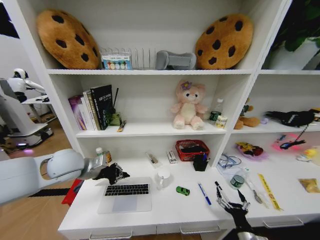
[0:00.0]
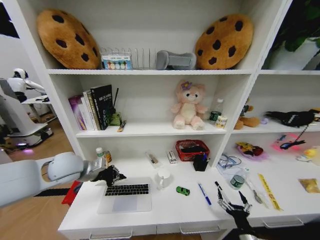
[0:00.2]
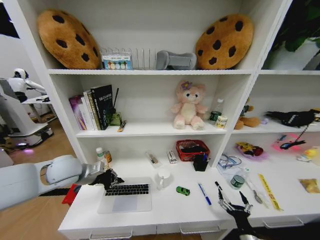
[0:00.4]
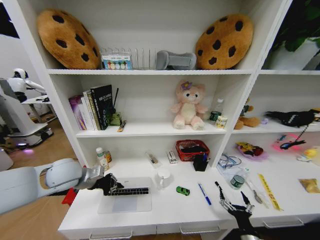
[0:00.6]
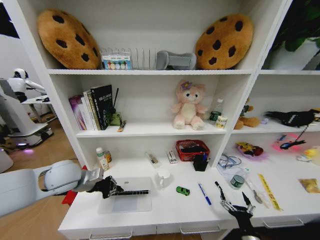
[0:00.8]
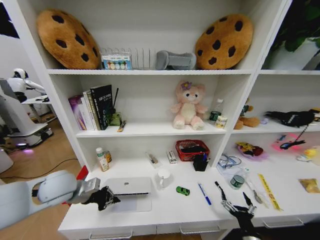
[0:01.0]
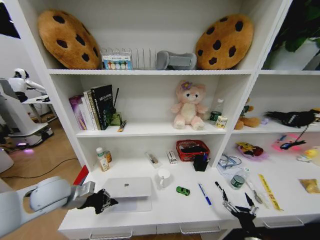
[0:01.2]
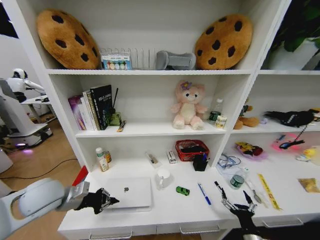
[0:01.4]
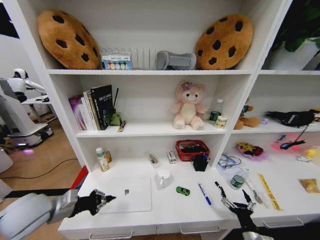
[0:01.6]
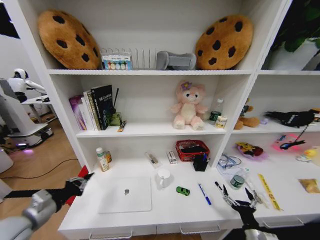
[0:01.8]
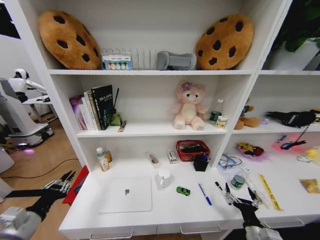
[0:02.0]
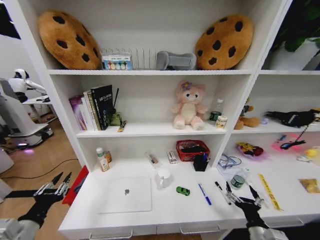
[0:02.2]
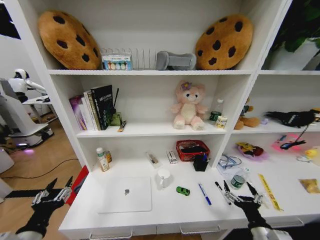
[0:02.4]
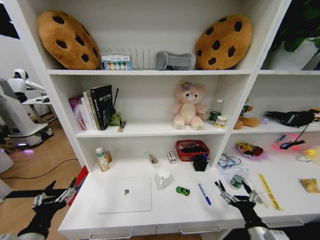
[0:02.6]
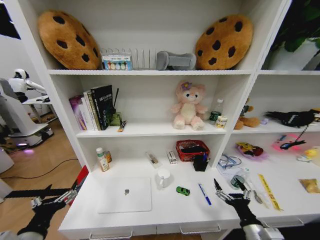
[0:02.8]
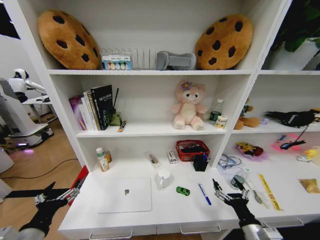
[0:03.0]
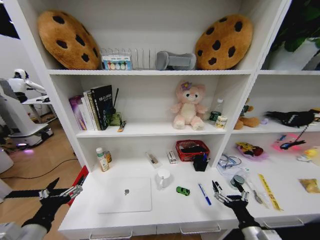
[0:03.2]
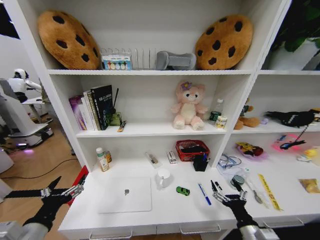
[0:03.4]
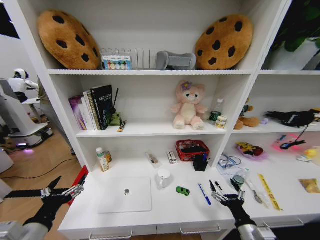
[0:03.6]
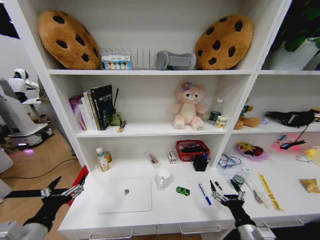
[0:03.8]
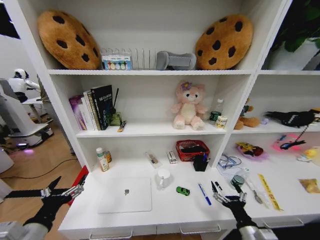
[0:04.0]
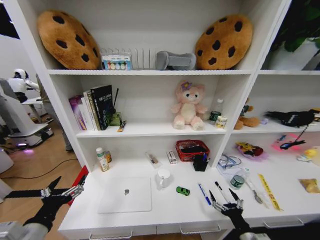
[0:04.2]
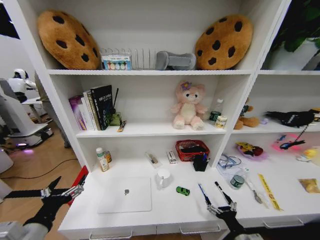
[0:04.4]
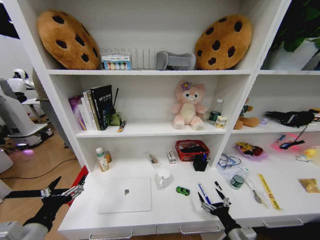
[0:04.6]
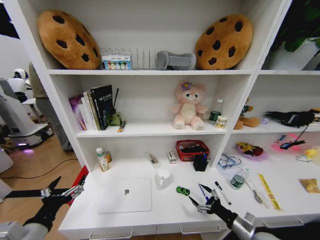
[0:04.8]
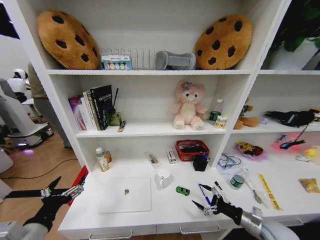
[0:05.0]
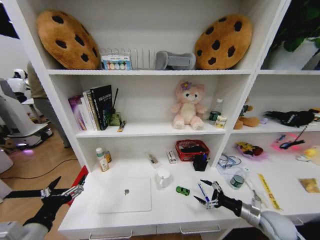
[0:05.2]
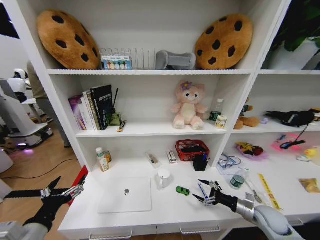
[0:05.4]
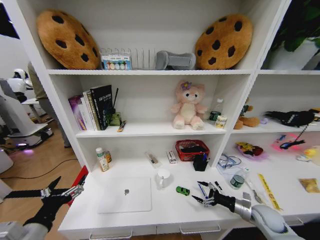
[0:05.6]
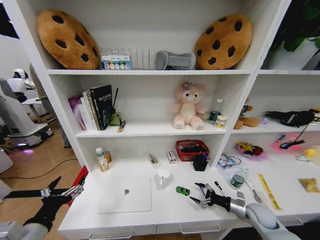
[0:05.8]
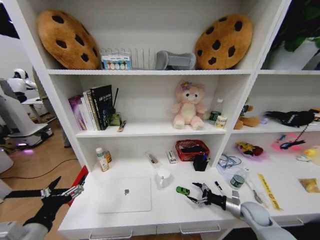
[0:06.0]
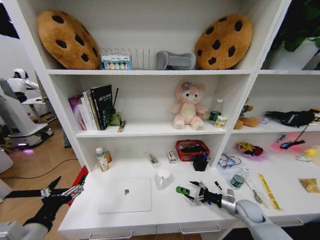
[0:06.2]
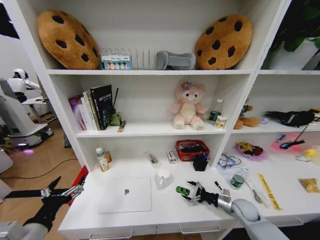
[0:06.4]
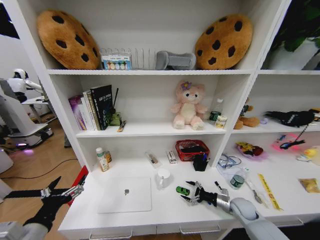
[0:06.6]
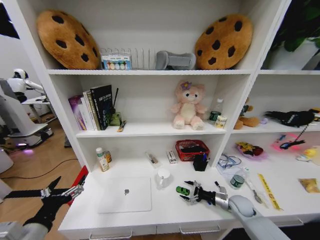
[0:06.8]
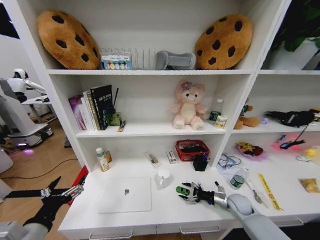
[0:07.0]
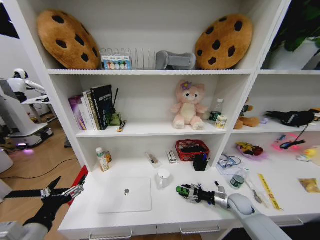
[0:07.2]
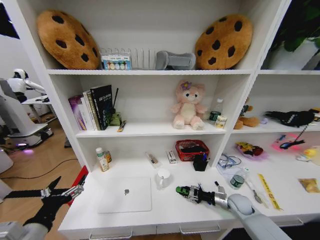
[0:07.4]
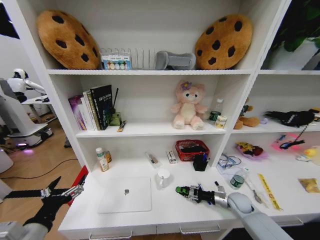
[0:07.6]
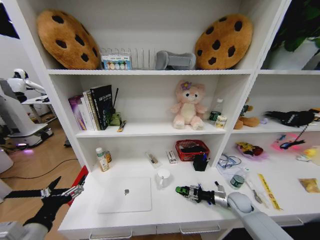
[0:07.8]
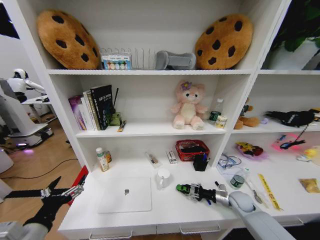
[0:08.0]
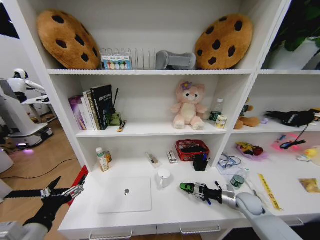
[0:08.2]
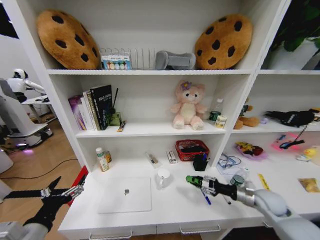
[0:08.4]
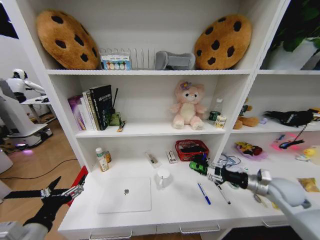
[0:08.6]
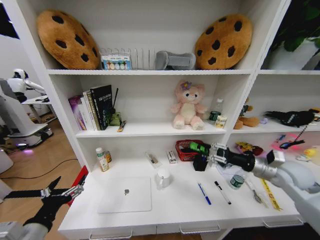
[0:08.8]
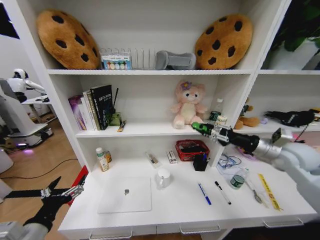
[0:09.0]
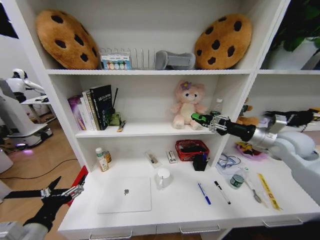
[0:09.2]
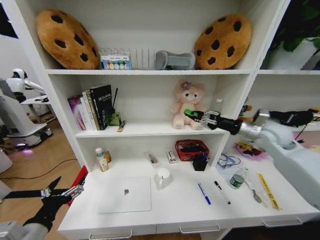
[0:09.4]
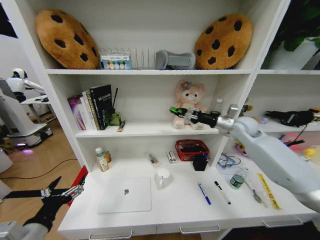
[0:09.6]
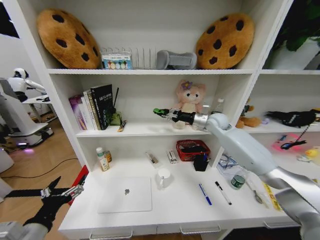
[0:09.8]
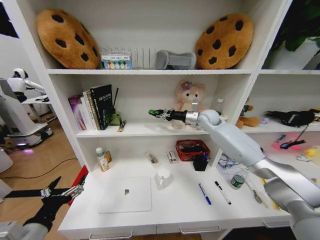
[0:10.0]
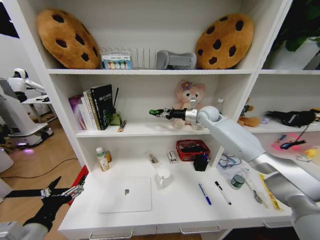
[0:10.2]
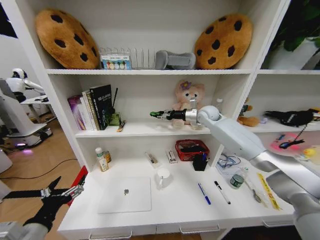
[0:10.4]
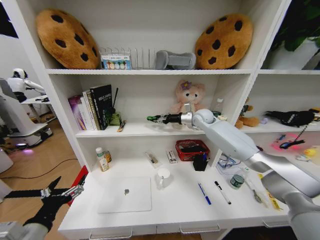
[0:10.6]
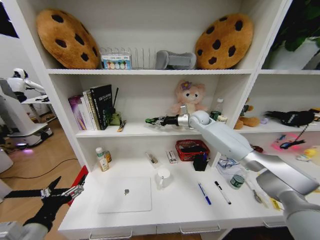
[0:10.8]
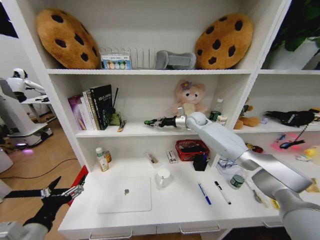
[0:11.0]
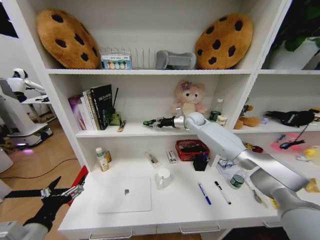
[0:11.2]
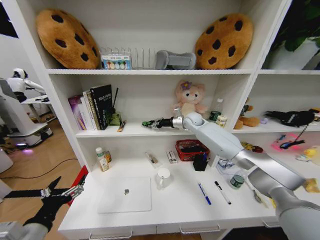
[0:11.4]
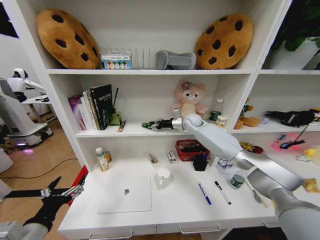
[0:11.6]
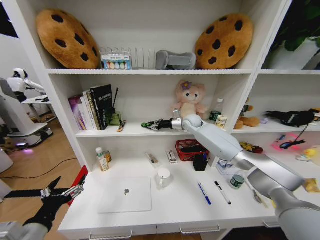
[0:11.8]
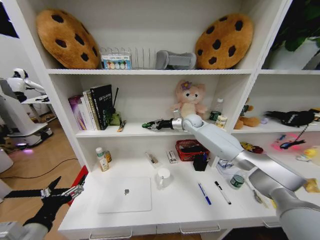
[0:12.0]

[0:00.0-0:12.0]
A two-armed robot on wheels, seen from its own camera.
Task of the whole recording: Organize the objects on the table.
0:00.0 to 0:01.6: The left gripper shifts some 15 cm backward, downward and to the left.
0:01.6 to 0:03.0: The right gripper heads upward, covering some 10 cm. Meanwhile the left gripper shifts some 15 cm backward, and opens.
0:03.0 to 0:04.4: The right gripper shifts about 5 cm downward.
0:04.4 to 0:06.0: The right gripper goes about 20 cm forward and to the right.
0:06.0 to 0:07.6: The right gripper ends up about 5 cm from where it was, and closes up.
0:07.6 to 0:09.0: The right gripper moves upward, some 35 cm.
0:09.0 to 0:10.4: The right gripper moves forward and to the left, roughly 30 cm.
0:10.4 to 0:12.0: The right gripper shifts approximately 10 cm to the left and downward.

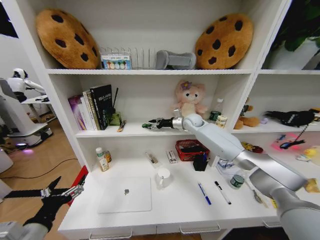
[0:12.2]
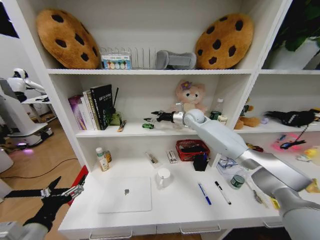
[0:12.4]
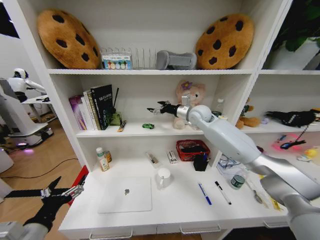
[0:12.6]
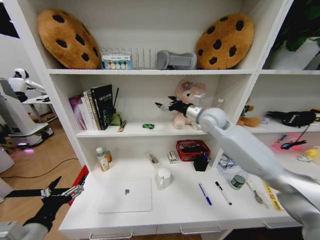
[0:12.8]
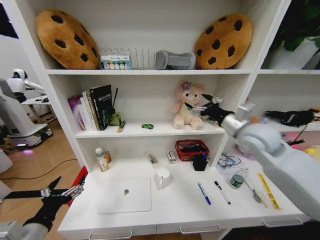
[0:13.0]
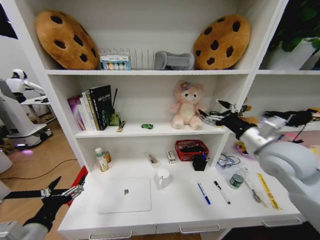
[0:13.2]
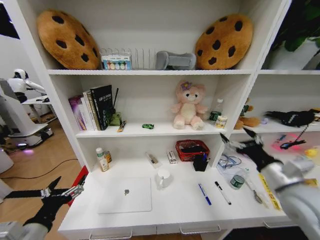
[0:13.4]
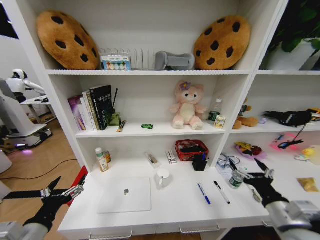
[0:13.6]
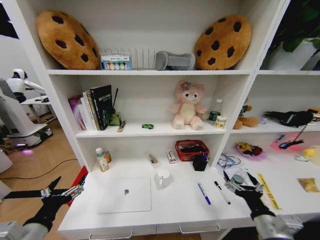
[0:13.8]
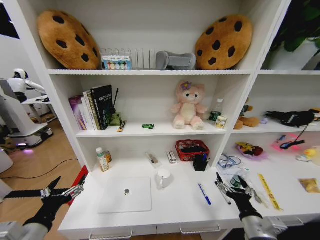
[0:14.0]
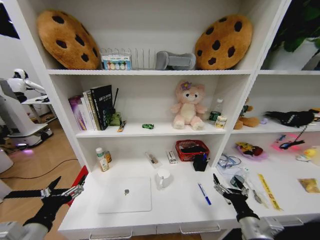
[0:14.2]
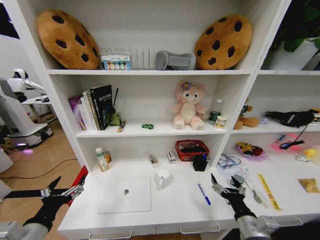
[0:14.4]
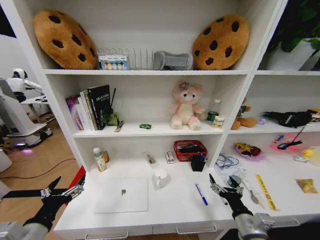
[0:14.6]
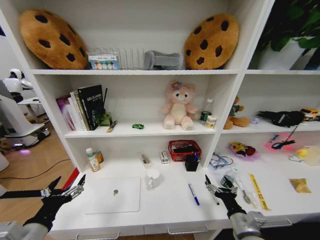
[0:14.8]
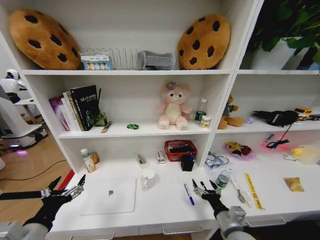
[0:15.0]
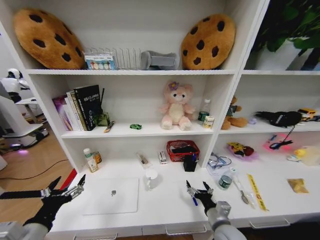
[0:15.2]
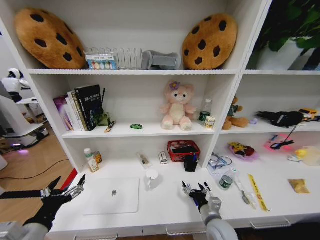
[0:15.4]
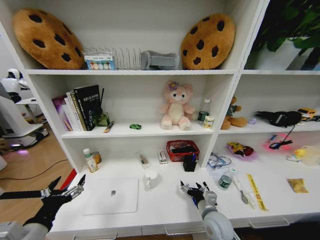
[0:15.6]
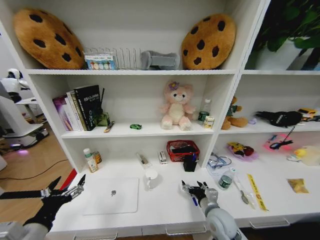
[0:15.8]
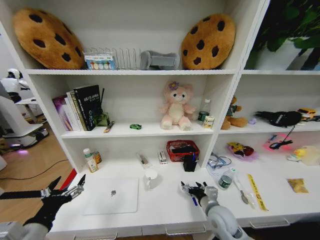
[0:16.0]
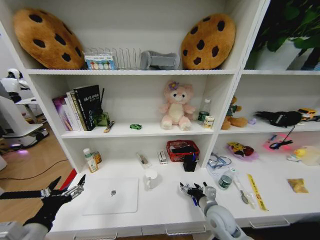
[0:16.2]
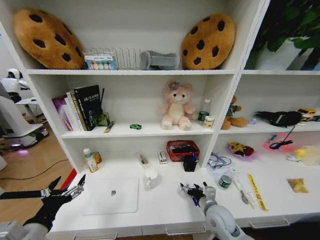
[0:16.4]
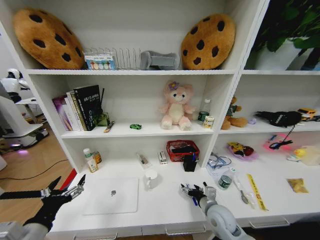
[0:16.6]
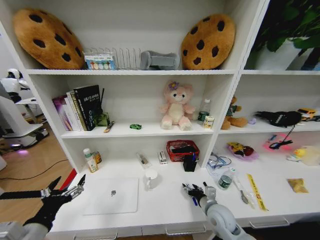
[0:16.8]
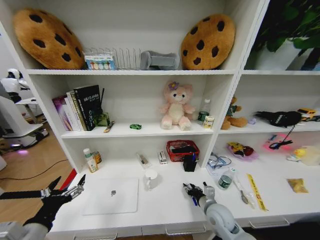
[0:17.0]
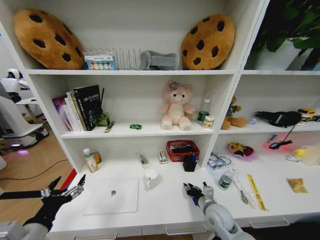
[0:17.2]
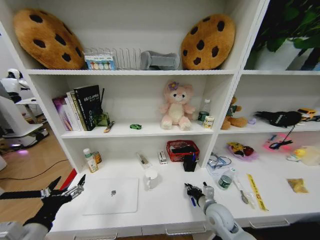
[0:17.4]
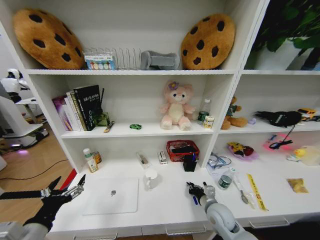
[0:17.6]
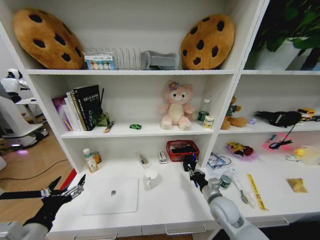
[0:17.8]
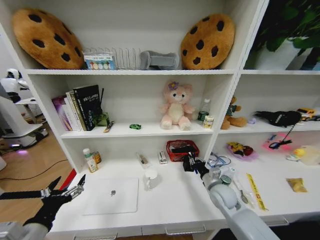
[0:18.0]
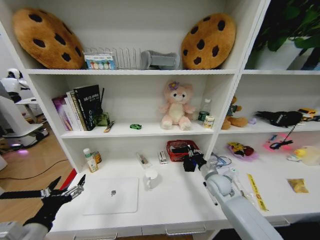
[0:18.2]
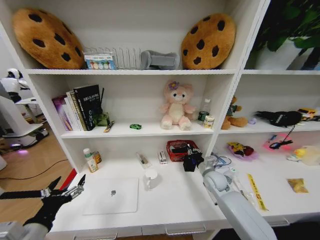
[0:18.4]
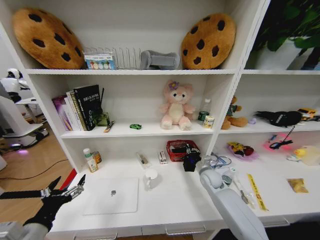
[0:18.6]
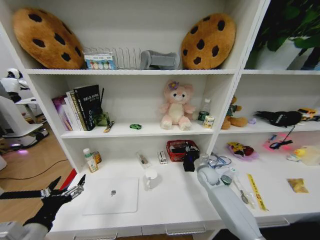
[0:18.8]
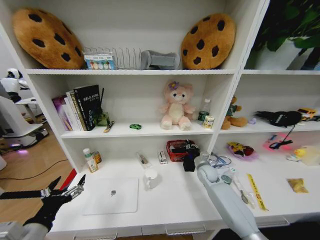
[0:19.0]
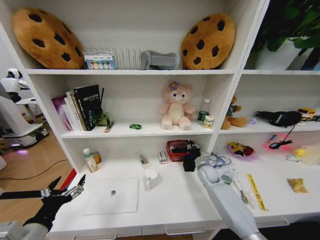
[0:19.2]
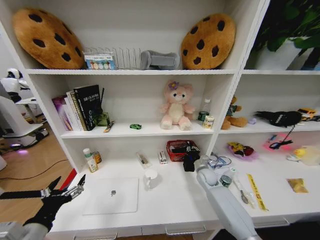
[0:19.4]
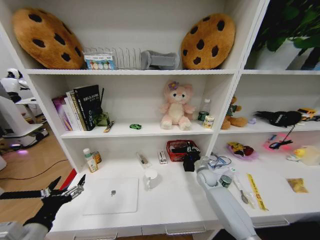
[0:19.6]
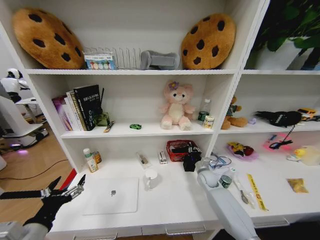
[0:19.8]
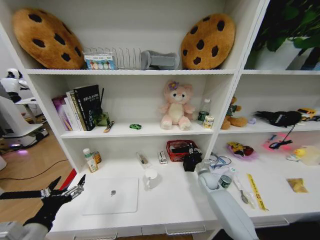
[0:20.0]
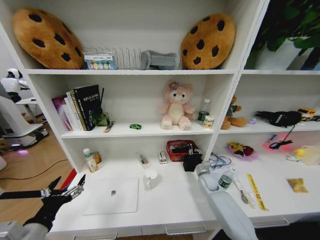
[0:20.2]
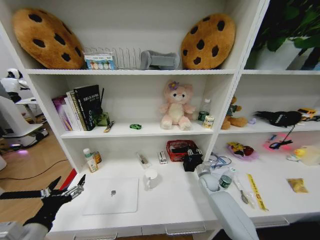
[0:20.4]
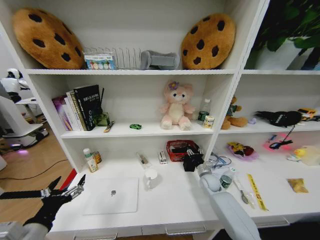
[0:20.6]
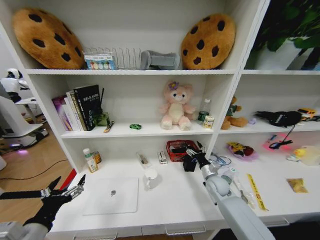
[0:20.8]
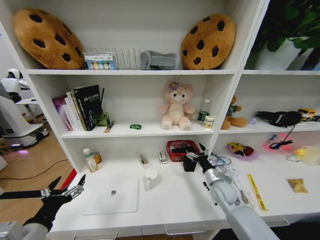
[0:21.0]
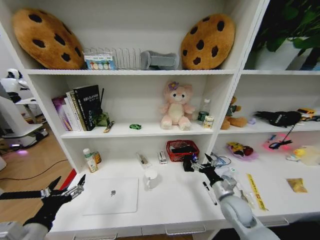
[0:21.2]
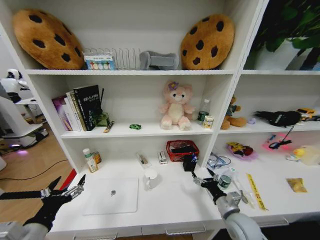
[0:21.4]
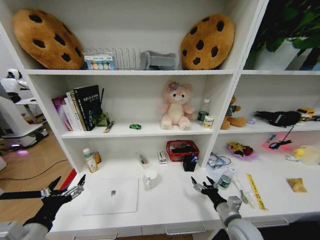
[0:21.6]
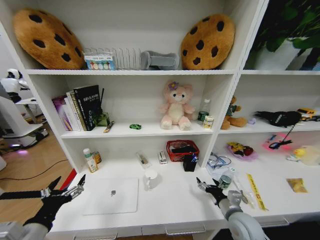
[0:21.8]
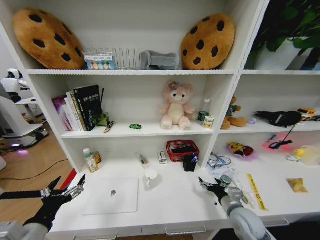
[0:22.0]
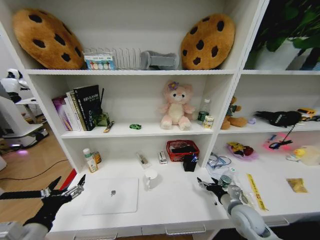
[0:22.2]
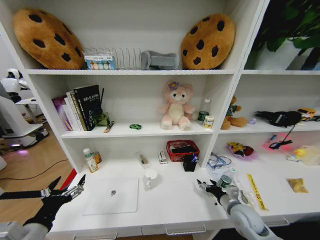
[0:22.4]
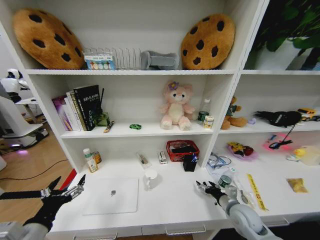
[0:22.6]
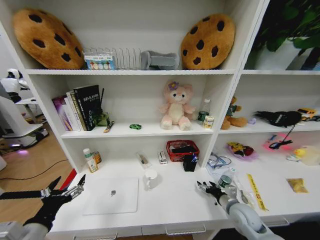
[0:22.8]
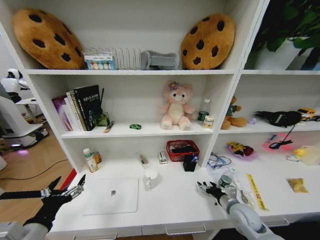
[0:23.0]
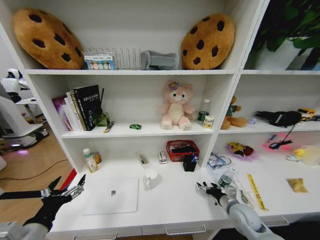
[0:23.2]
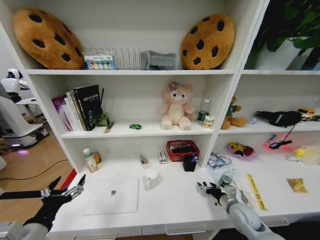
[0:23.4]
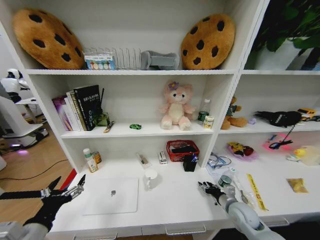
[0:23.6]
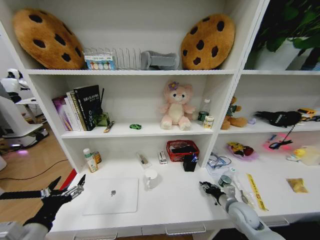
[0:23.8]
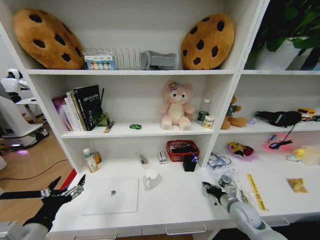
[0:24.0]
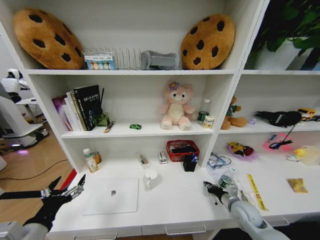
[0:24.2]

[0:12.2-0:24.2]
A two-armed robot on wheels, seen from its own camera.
Task of the whole recording: Organize the objects on the table.
0:12.2 to 0:13.8: The right gripper moves backward, about 50 cm.
0:13.8 to 0:15.2: The right gripper goes approximately 15 cm to the left, downward and forward.
0:15.2 to 0:16.6: The right gripper is displaced forward by about 5 cm.
0:16.6 to 0:18.2: The right gripper is displaced forward by approximately 10 cm, and closes its fingers.
0:18.2 to 0:19.8: The right gripper is displaced forward and downward by approximately 10 cm.
0:19.8 to 0:21.2: The right gripper shifts roughly 15 cm backward, and opens up.
0:22.6 to 0:24.2: The right gripper closes up.
